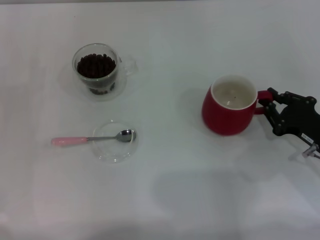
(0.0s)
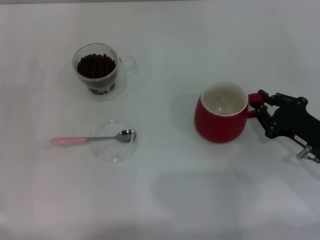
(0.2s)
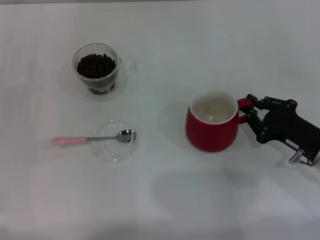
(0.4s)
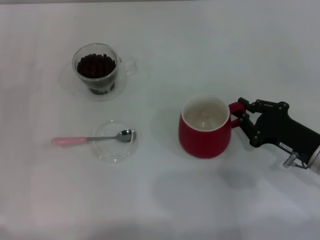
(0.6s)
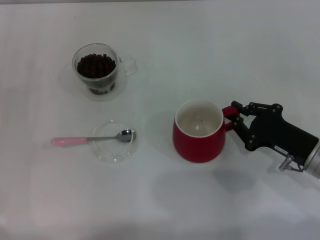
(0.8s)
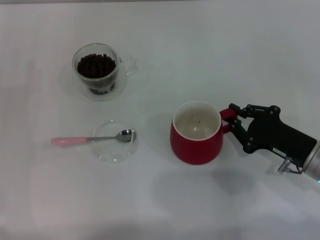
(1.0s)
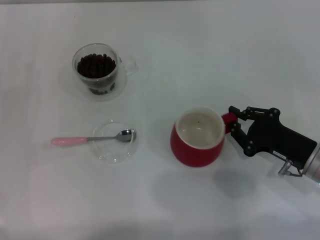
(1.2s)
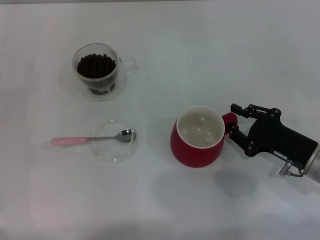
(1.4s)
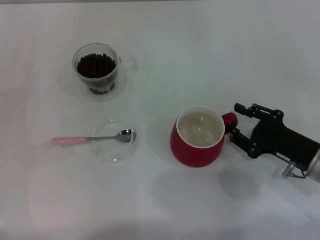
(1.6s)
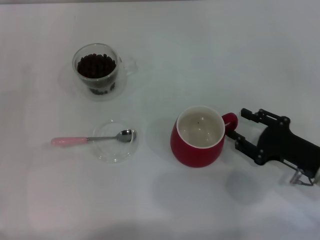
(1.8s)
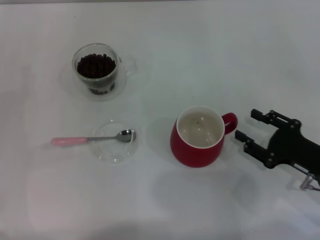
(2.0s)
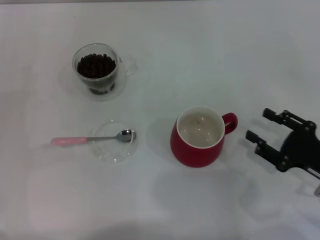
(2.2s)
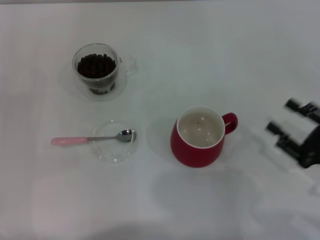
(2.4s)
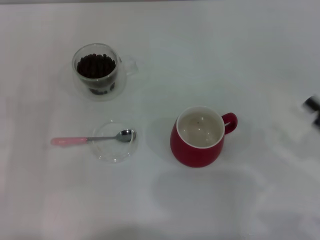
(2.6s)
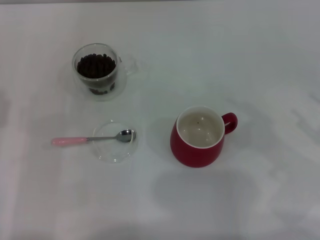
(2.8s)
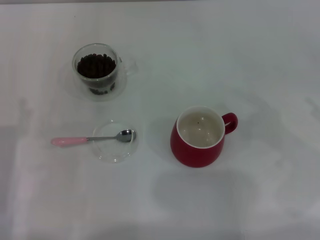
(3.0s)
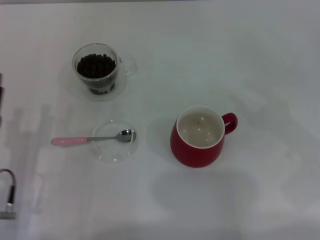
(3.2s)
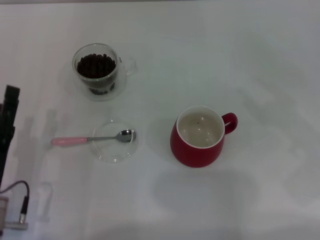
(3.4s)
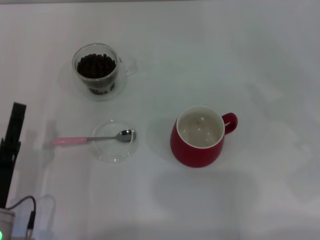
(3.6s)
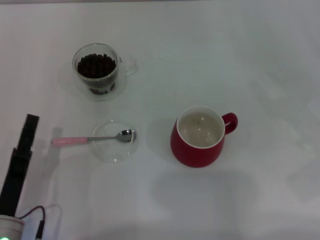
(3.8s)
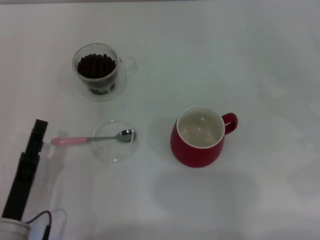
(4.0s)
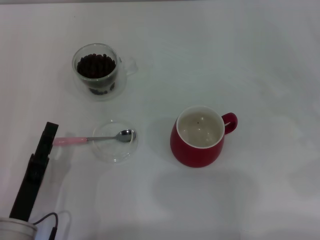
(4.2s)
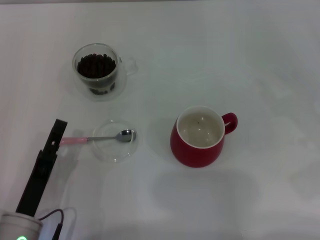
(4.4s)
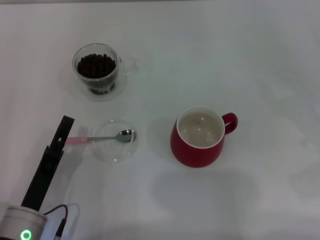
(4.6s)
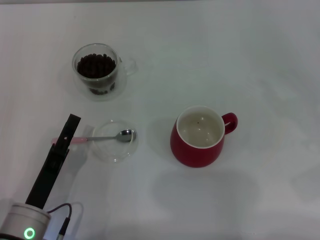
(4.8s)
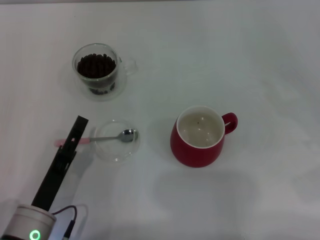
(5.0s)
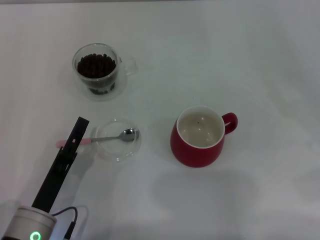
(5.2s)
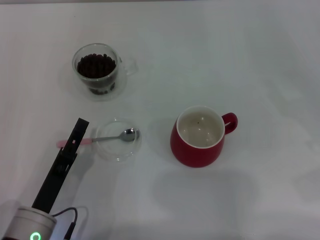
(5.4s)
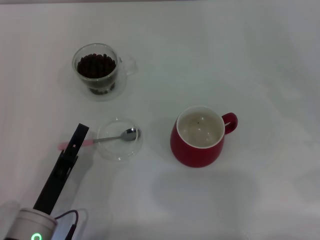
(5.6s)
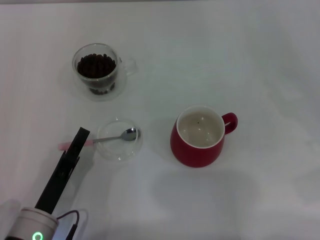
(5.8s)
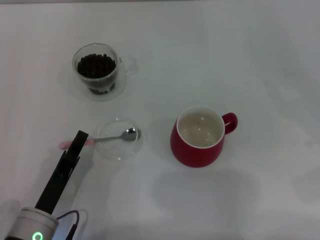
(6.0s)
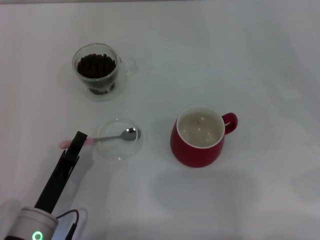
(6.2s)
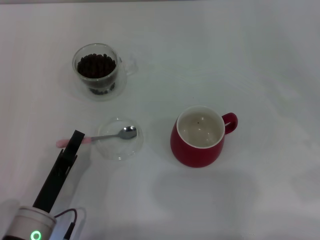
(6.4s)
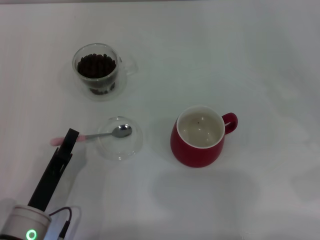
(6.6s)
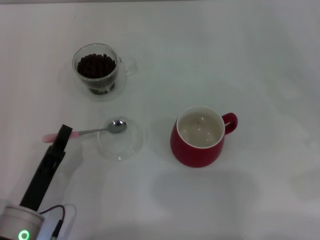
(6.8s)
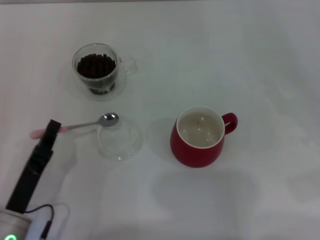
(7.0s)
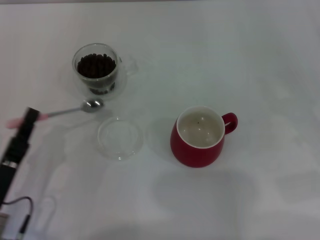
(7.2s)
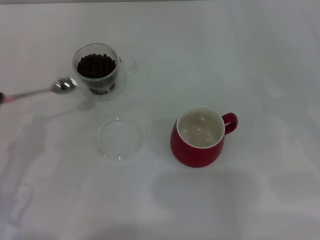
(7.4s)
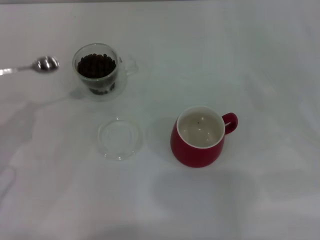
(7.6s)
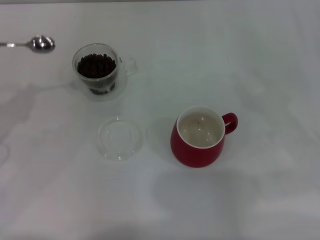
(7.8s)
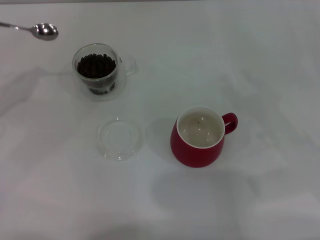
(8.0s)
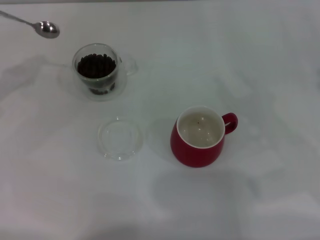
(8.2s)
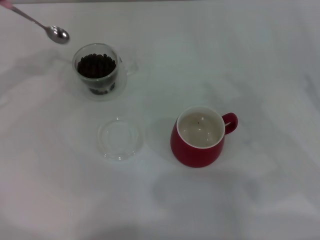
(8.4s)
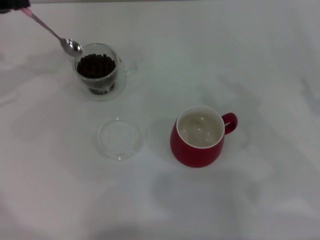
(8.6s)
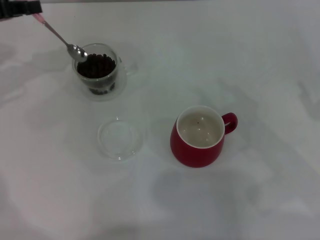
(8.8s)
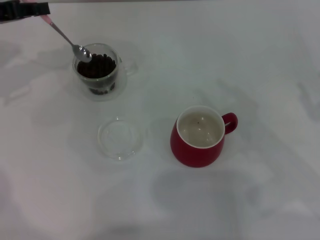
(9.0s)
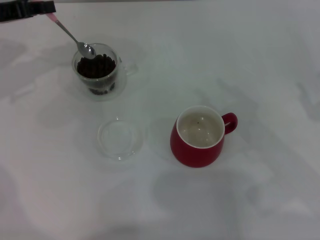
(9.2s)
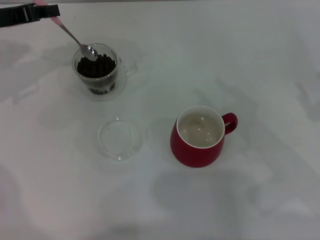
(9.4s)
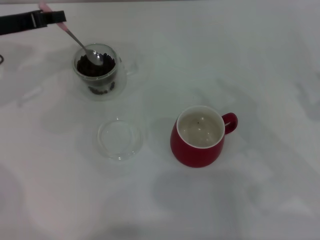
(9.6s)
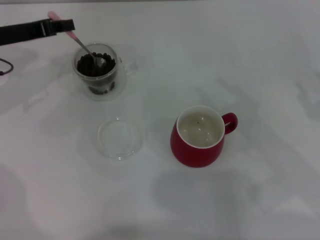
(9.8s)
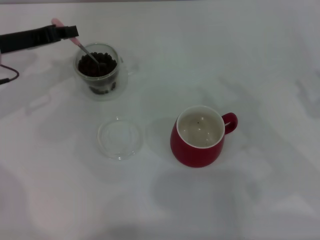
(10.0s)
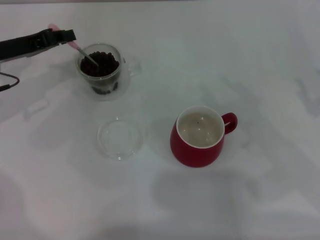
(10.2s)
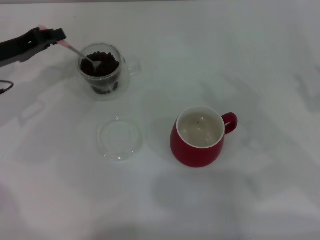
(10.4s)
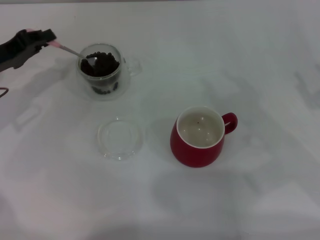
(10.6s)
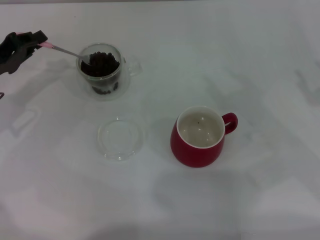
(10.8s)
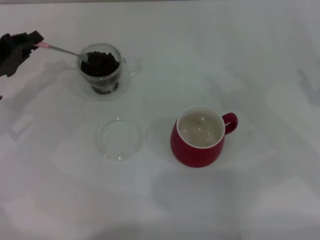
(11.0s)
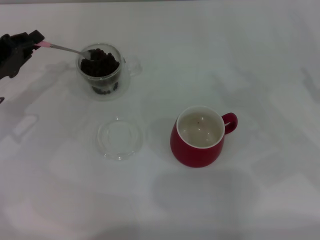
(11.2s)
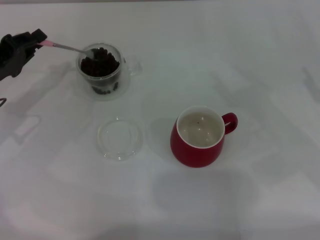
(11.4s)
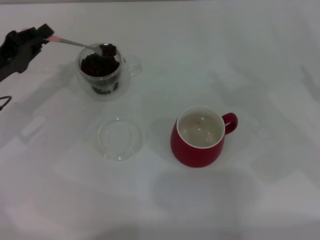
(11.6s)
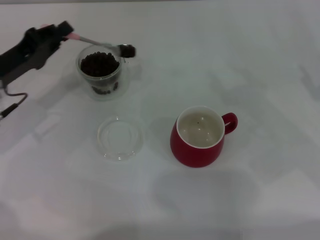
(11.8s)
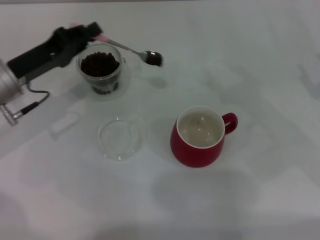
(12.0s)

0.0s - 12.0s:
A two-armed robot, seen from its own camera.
Task of the whole recording: Use a pink spoon to take out the coffee beans from the glass and pour them into the red cup.
Step, 0.0s - 2.0s: Move the cup to the center of view with the left gripper.
Step, 2.2s - 7.0s: Pick up the spoon with the right gripper.
0.0s - 1.6s: The right gripper opens.
1.6s - 3.0s: The right gripper moves to the right and upward, about 15 cm.
3.0s - 4.4s: The left gripper goes about 5 cm to the right.
4.4s - 6.0s: The left gripper closes.
6.0s - 7.6s: The left gripper heads to the left and upward, covering approximately 15 cm, and closes.
7.6s - 9.0s: The left gripper goes about 25 cm forward and upward.
9.0s - 10.4s: The left gripper shifts roughly 5 cm downward.
10.4s - 12.0s: The left gripper shifts by roughly 5 cm.

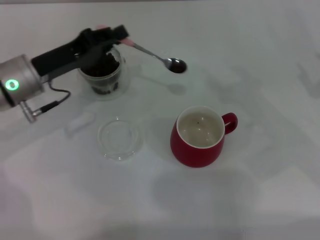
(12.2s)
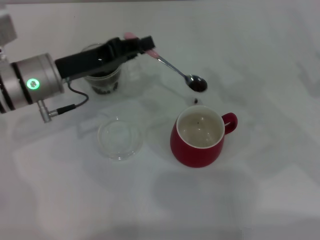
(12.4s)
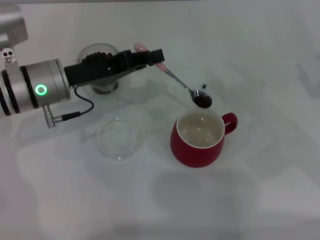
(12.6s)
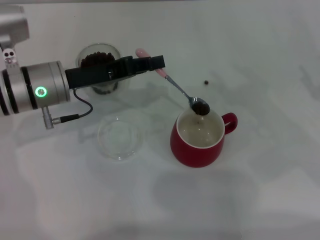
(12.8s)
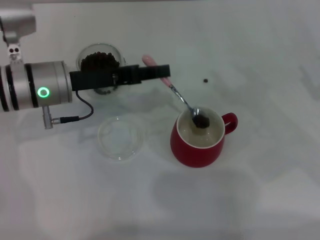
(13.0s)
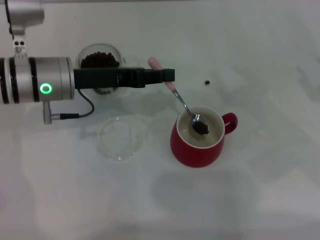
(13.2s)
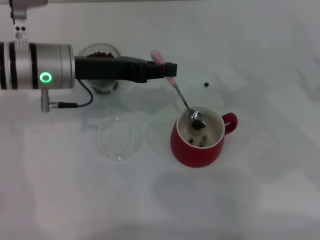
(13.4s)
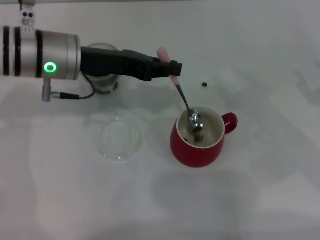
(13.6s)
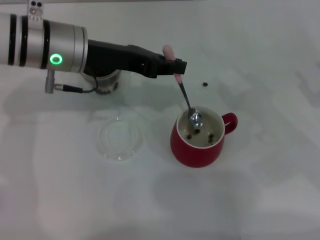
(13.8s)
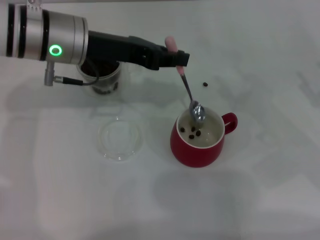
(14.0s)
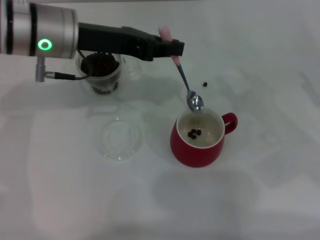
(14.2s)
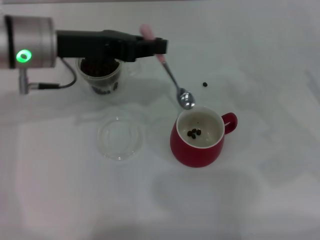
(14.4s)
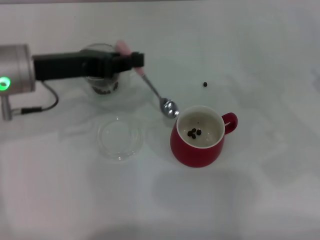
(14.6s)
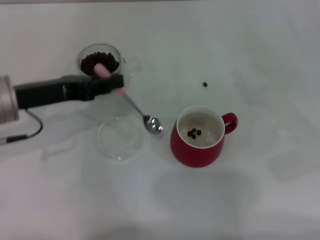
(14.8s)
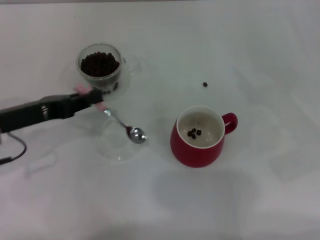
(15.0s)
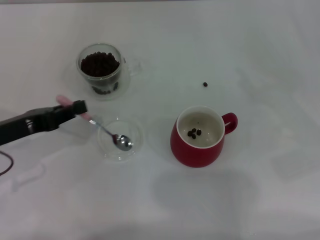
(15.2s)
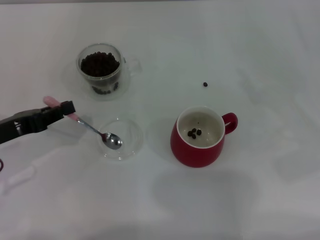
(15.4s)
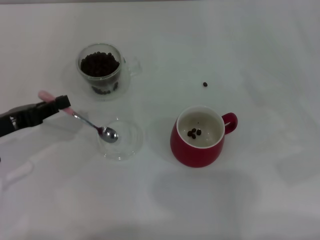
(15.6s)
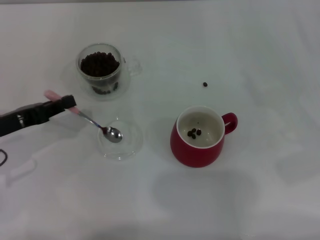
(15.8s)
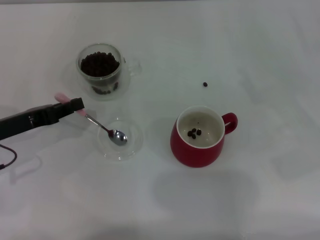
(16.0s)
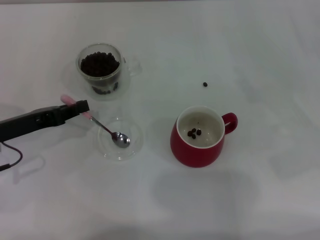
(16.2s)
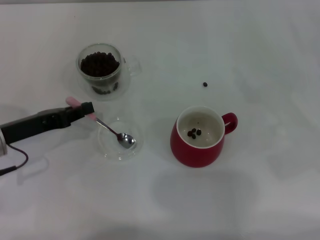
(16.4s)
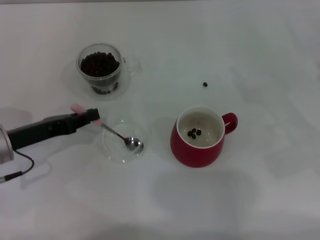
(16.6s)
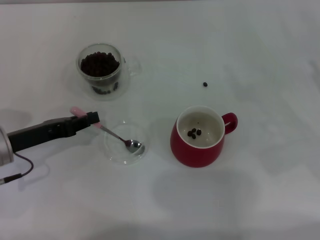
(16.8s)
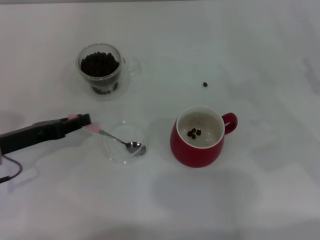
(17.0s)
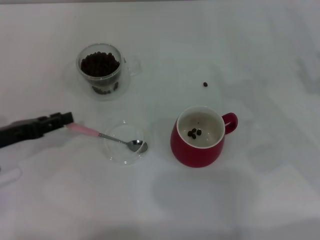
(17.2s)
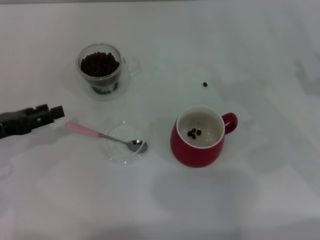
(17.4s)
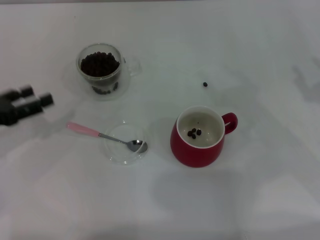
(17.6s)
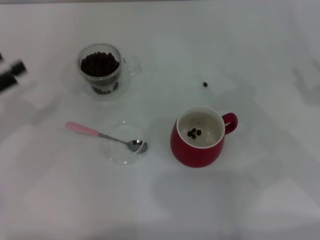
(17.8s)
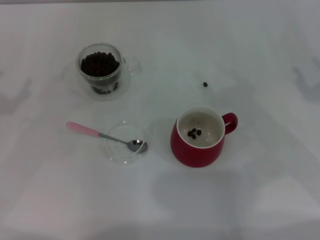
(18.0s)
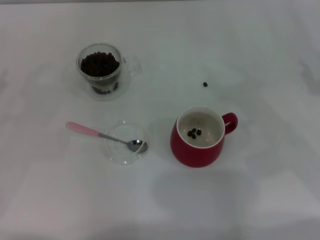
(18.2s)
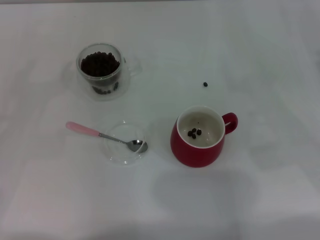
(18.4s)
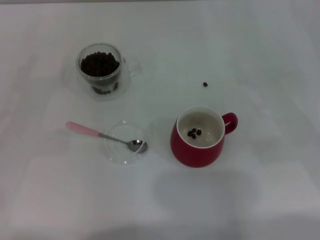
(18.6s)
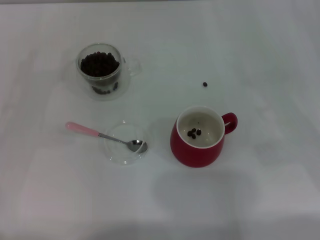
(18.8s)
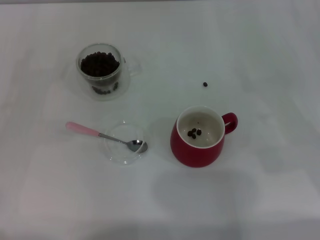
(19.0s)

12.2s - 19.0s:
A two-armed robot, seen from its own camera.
Task of the whole recording: Use a pink spoon to take out the coffee beans from the glass and pour them into the red cup.
Step, 12.2s - 14.4s: Scoop a spoonful of beans into the cup with the right gripper.
Step, 14.6s - 17.4s: Place the spoon back in its original place with the right gripper.
12.2s - 13.6s: The left gripper travels to the right and upward by roughly 10 cm.
13.6s - 15.0s: The left gripper moves to the left and backward, about 15 cm.
15.0s - 16.2s: The grippers make only small movements.
16.2s - 17.6s: The left gripper is displaced to the left by about 5 cm, and opens.
